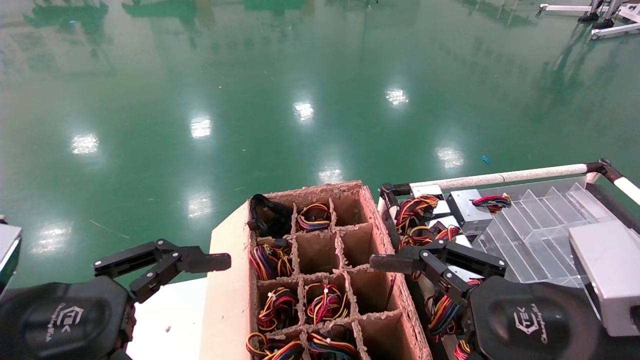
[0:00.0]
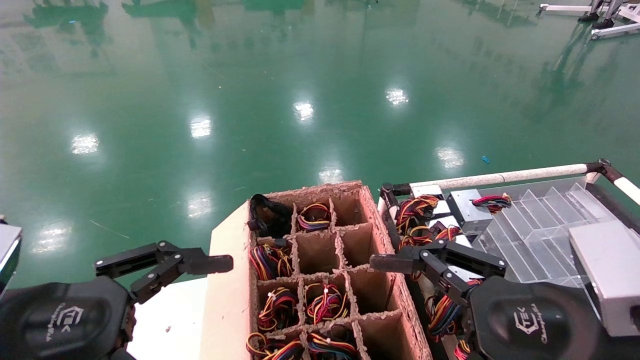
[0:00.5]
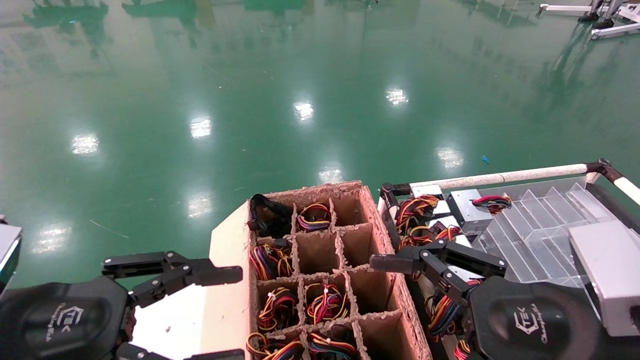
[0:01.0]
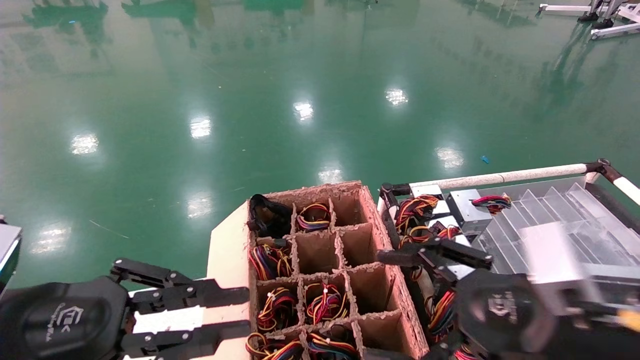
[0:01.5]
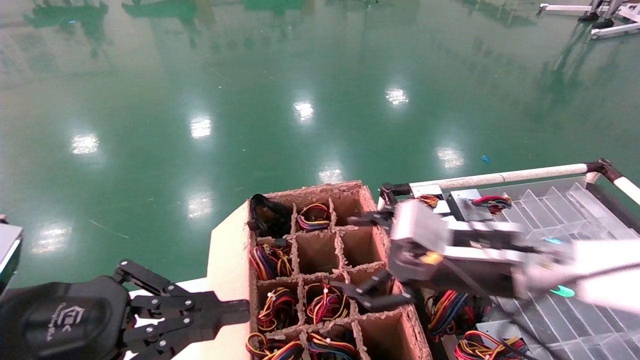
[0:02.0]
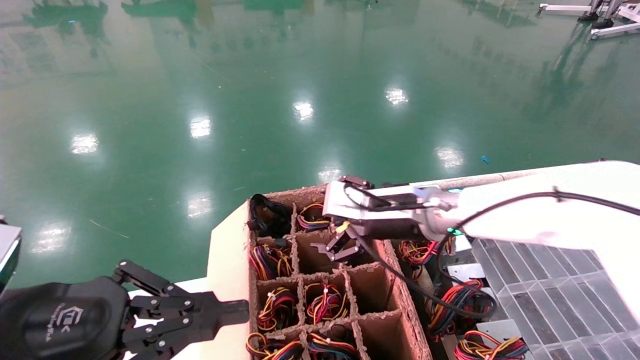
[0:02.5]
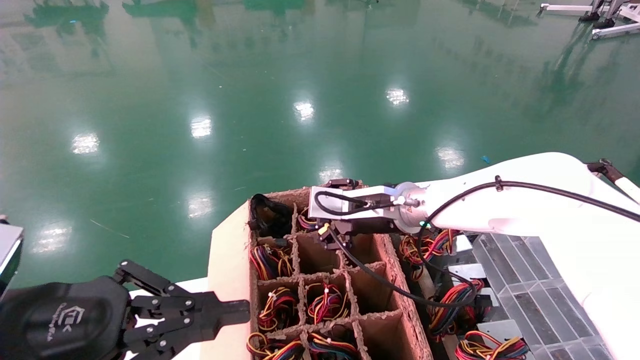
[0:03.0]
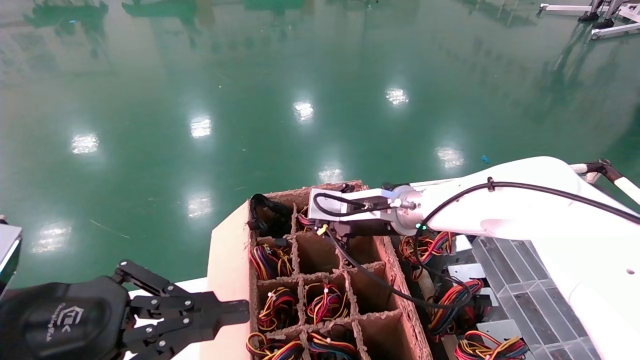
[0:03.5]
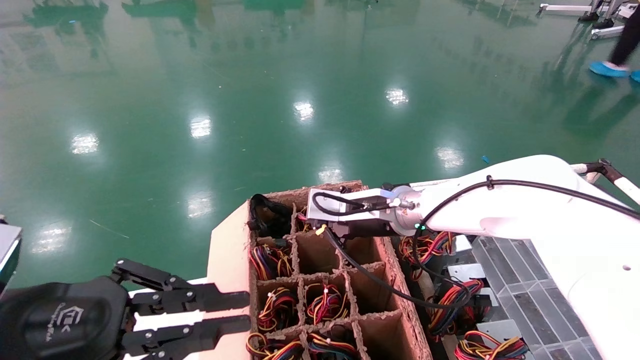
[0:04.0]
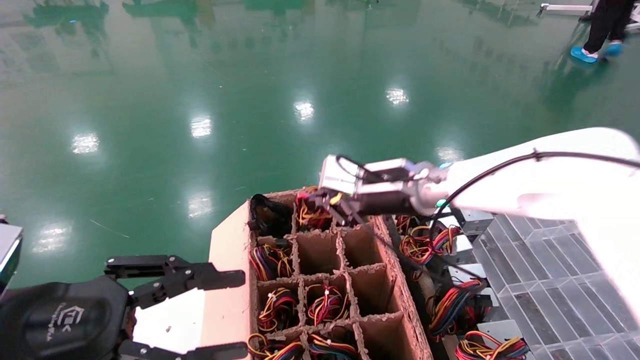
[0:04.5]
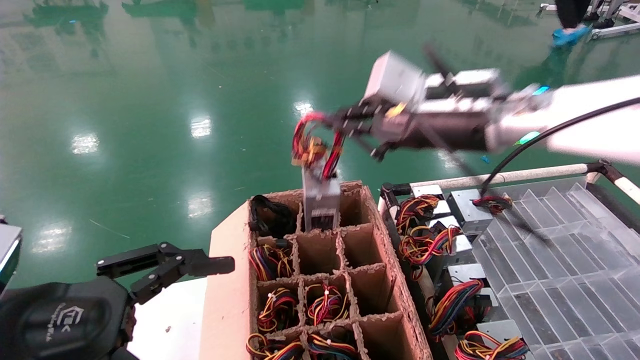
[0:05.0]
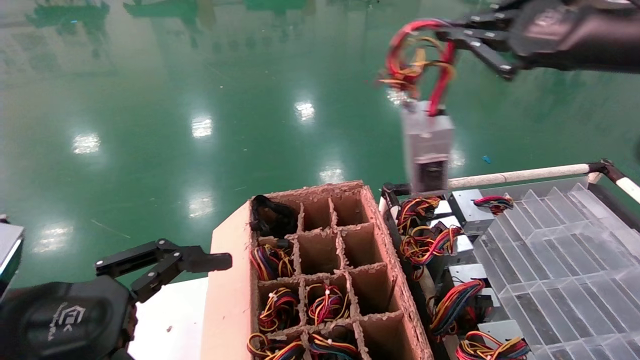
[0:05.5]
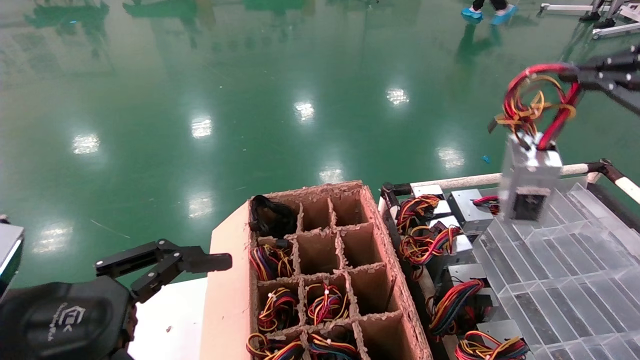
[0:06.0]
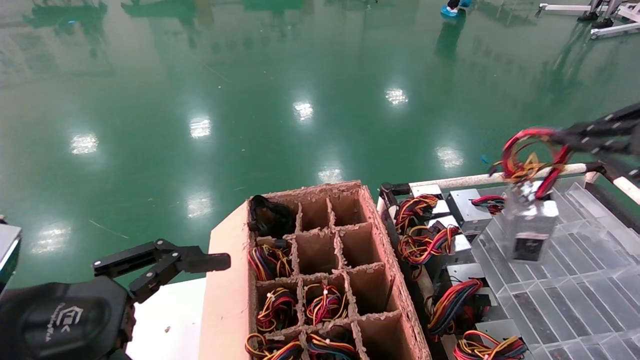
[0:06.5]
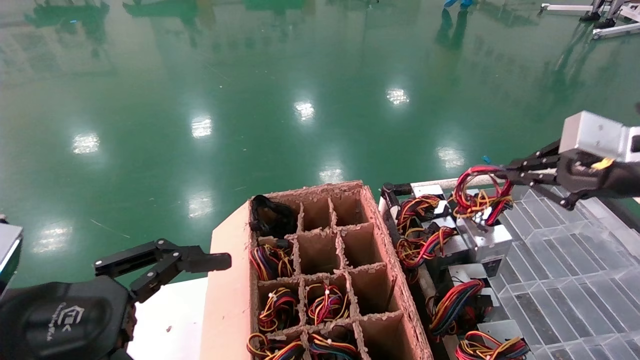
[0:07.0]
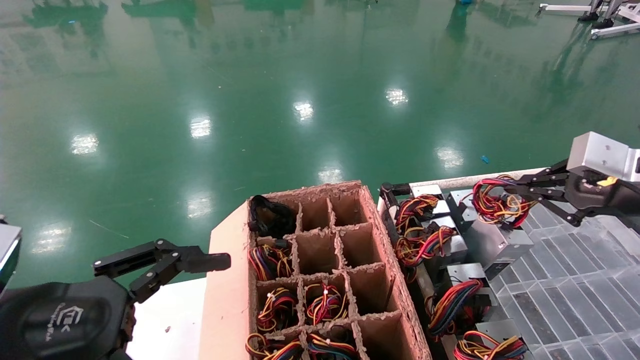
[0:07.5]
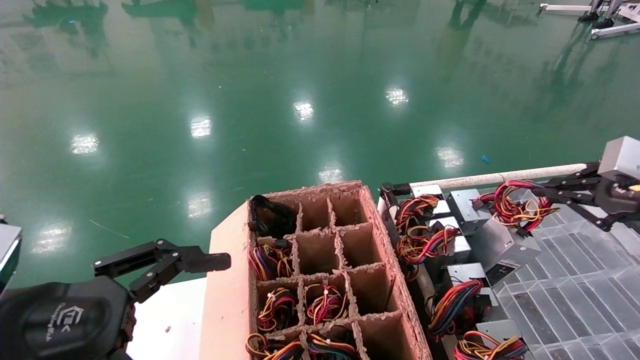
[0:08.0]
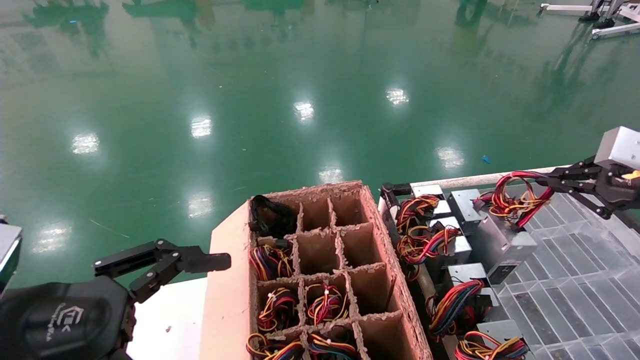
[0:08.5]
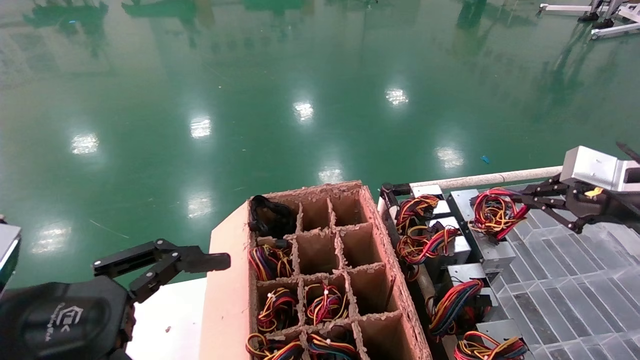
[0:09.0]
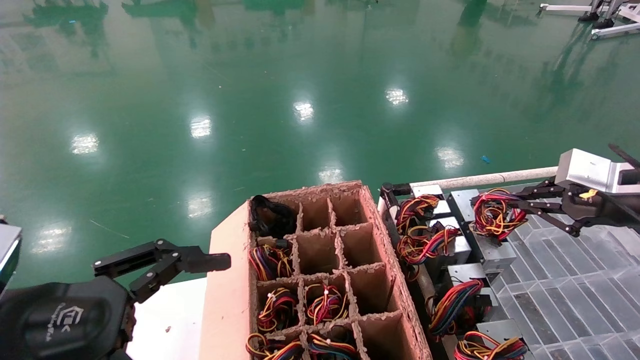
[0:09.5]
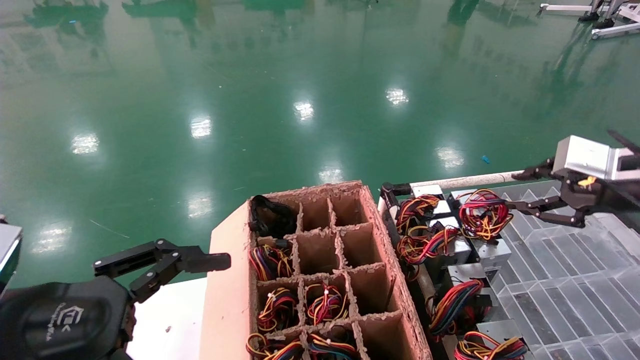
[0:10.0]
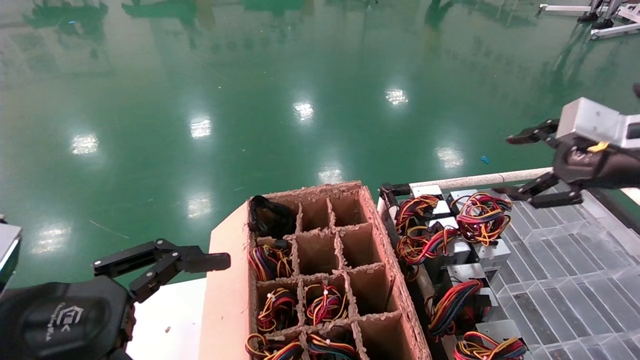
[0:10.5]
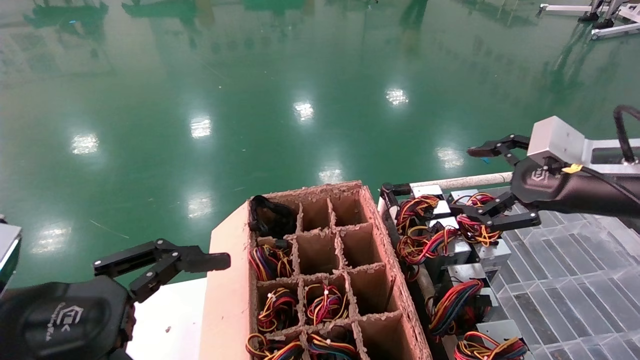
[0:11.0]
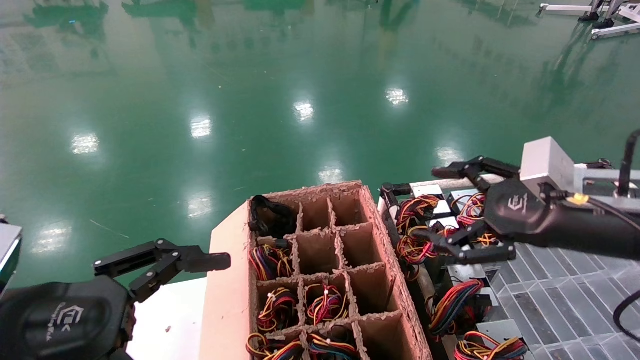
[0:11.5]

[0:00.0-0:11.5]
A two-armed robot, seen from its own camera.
Step, 0:01.0 to 0:03.5: Grab and lift the power supply from the large box.
Step, 0:04.0 to 0:09.5: Place the power supply on the operating table.
0:00.0 to 0:02.0: The left gripper closes; the right gripper shifts some 15 cm forward.
0:02.0 to 0:04.0: The right gripper shifts about 15 cm forward and to the left, and closes up.
0:04.0 to 0:06.0: The left gripper opens its fingers, while the right gripper goes approximately 40 cm to the right, backward and upward.
0:06.0 to 0:07.5: The right gripper shifts about 15 cm downward and forward.
0:07.5 to 0:09.5: The grippers stay close to where they were, moving slightly.
0:09.5 to 0:11.5: The right gripper moves to the left and backward, about 15 cm, and opens its fingers.
